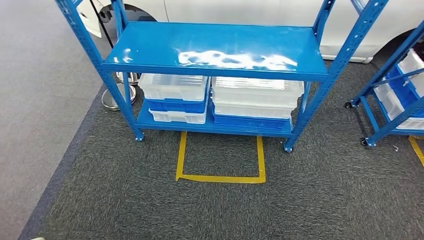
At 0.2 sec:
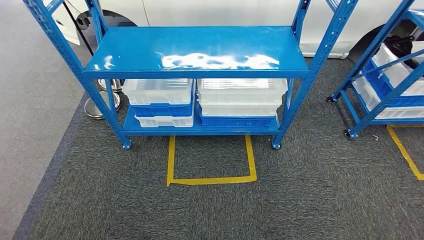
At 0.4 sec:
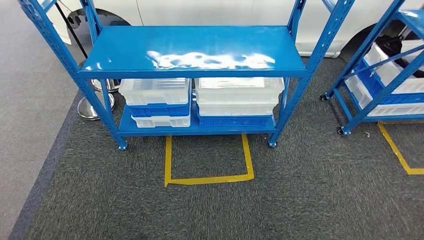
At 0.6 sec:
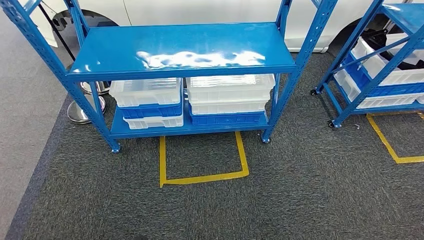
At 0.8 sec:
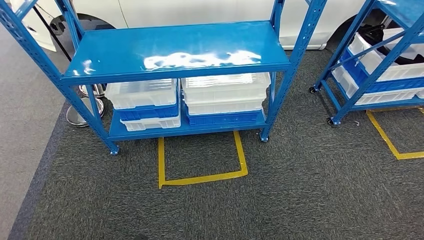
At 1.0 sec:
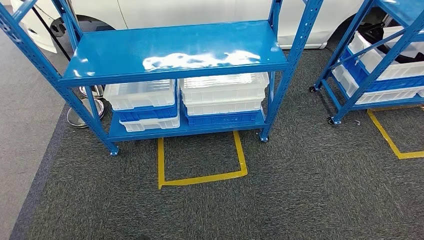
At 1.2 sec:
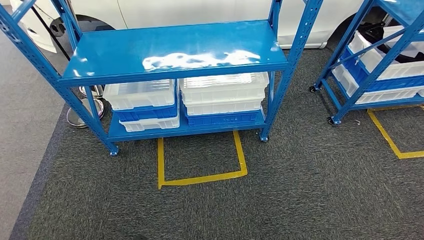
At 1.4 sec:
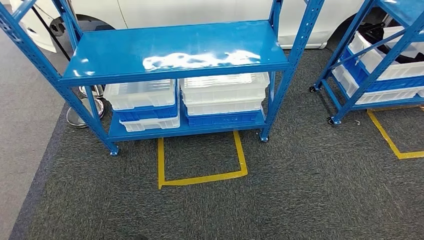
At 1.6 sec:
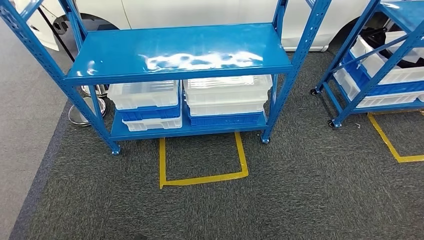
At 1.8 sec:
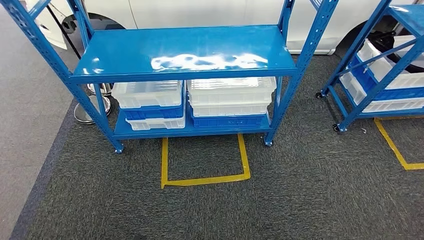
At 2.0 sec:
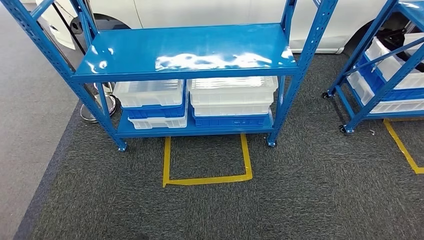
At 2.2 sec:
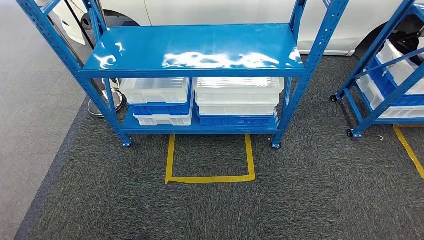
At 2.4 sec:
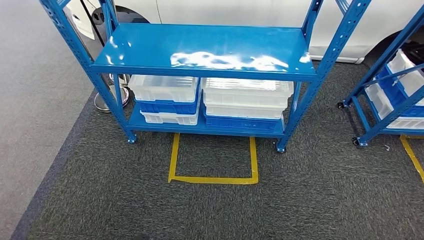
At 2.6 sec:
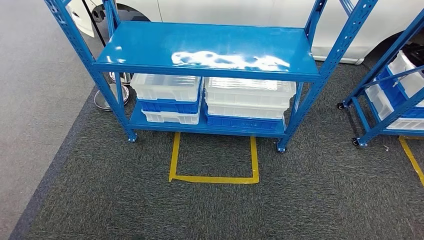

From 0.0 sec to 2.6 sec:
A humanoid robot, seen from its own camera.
Step, from 0.0 sec to 2.6 sec: Move to the initial position of the shelf.
